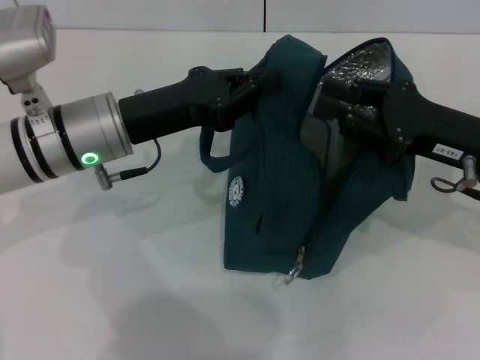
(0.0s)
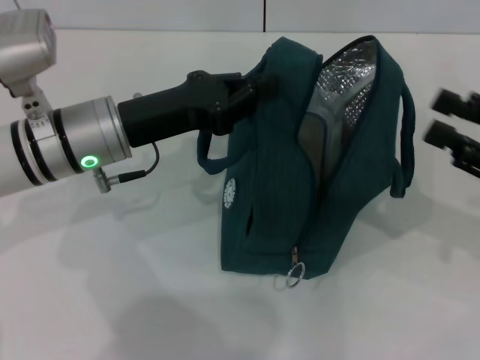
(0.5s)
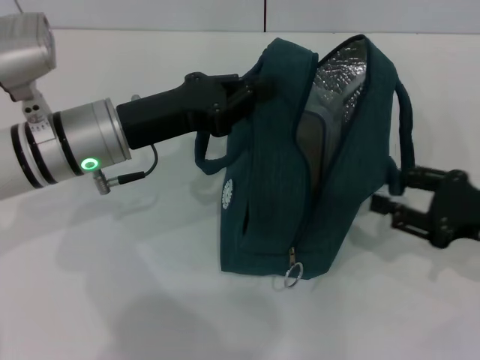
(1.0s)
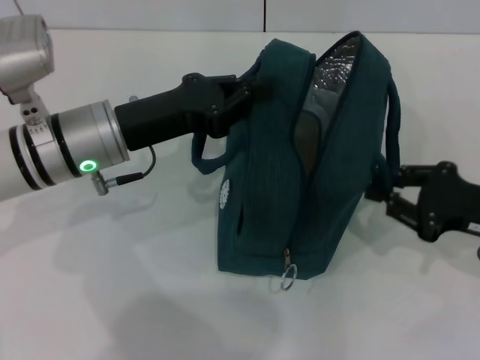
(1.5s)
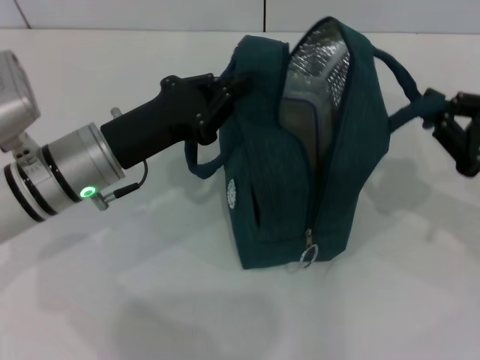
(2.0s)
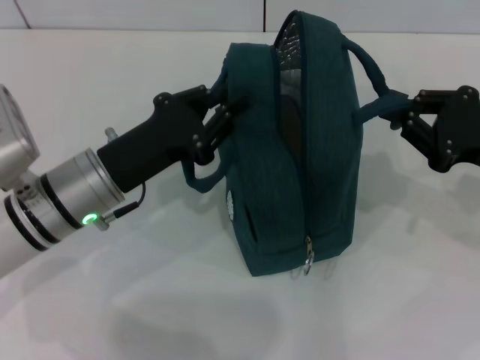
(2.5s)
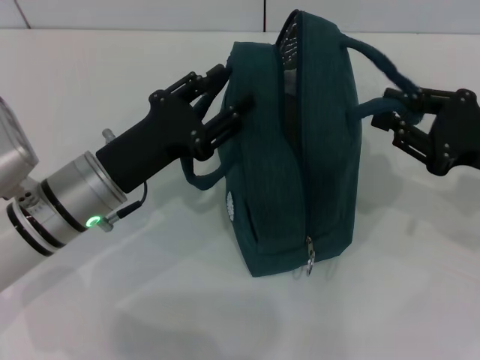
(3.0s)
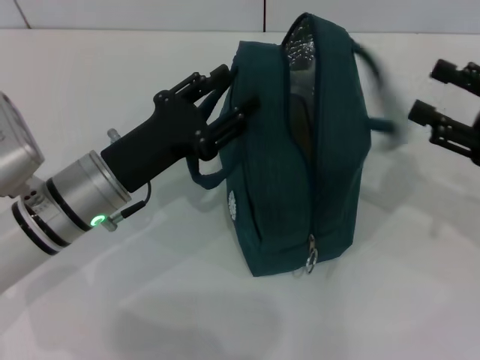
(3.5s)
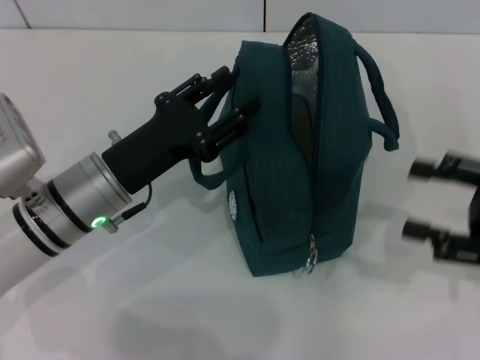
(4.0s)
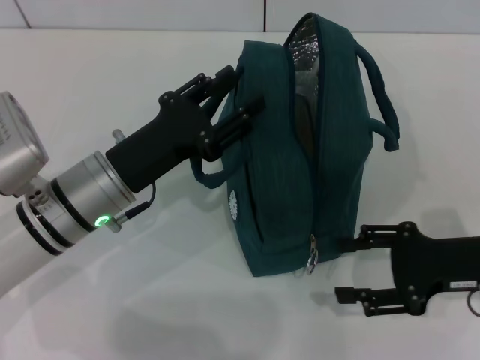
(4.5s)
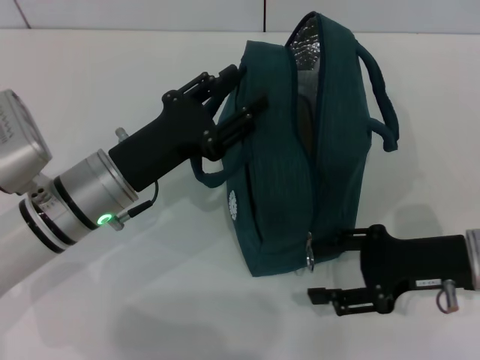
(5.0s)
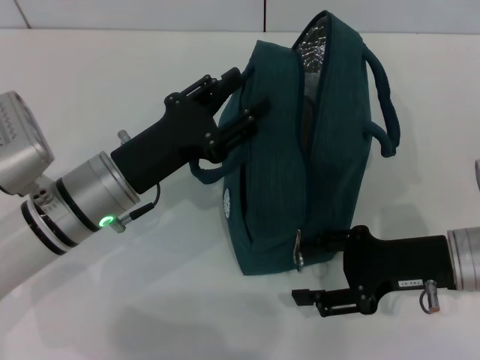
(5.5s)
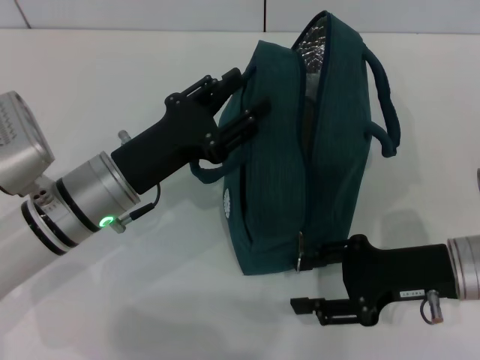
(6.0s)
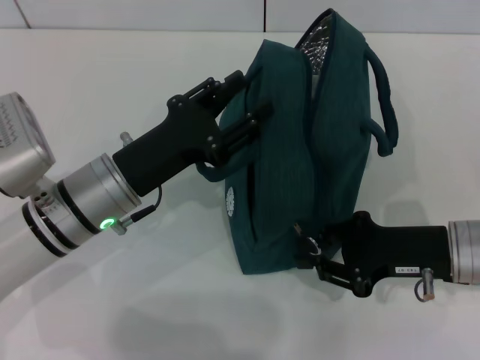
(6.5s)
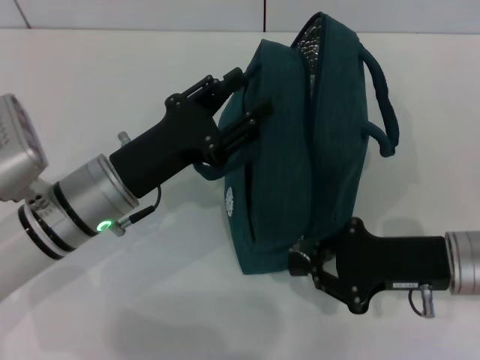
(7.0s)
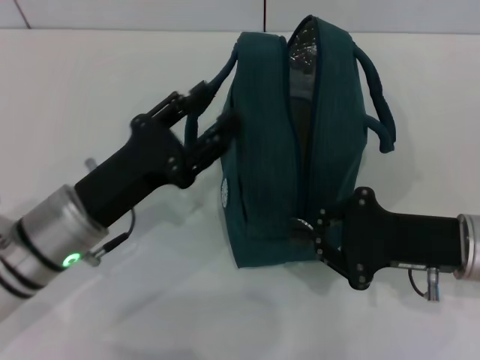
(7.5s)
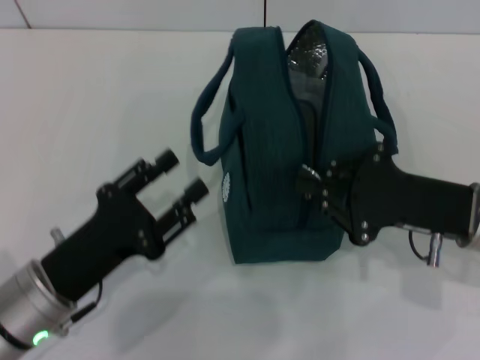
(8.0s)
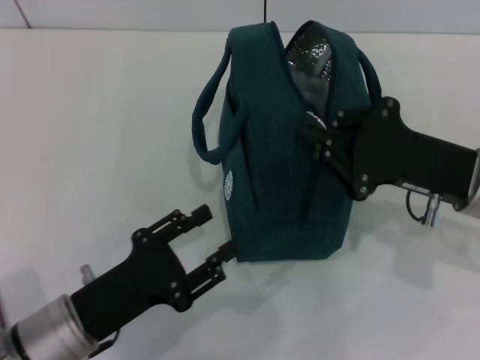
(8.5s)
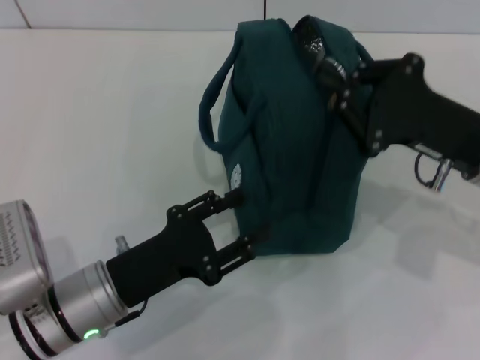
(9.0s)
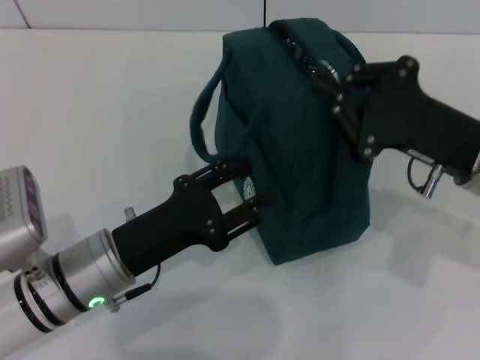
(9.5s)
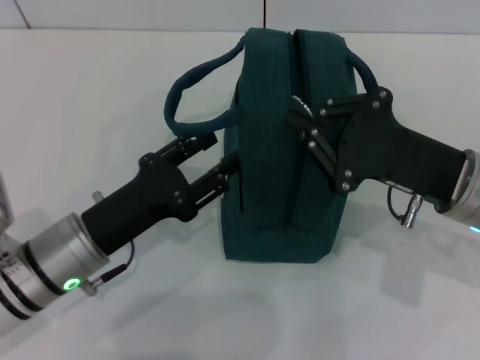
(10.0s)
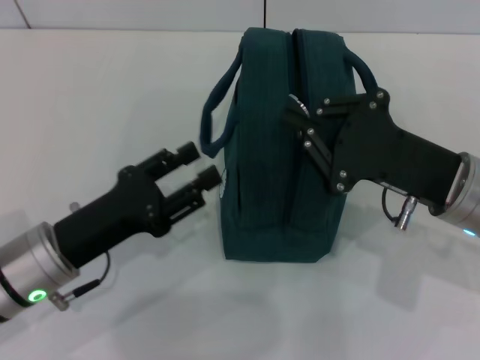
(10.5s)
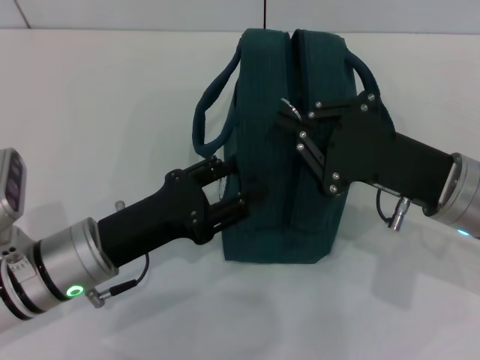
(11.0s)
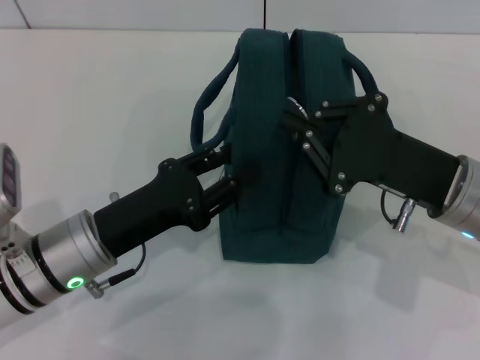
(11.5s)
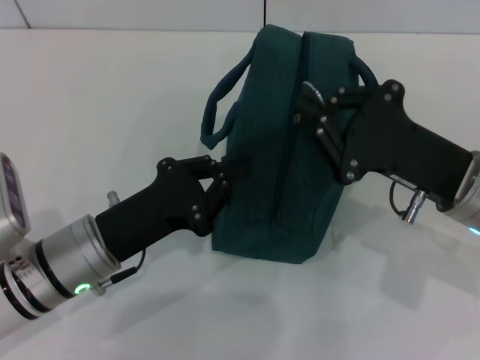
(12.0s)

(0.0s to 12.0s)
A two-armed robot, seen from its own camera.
Step, 0.5s - 3.0s: Hold the lunch bag with your left hand.
0.0s - 2.0s: The right gripper is displaced to the right by some 5 cm.
2.0s - 4.0s: The right gripper opens; the left gripper opens up.
4.0s - 6.0s: The right gripper travels to the left and downward by some 10 cm.
6.0s - 8.0s: The left gripper is displaced backward by roughly 10 cm. The right gripper closes.
10.0s - 12.0s: The left gripper closes its fingers.

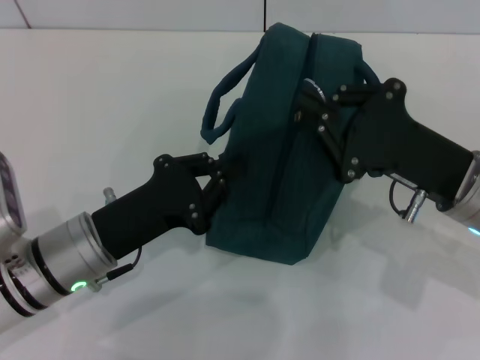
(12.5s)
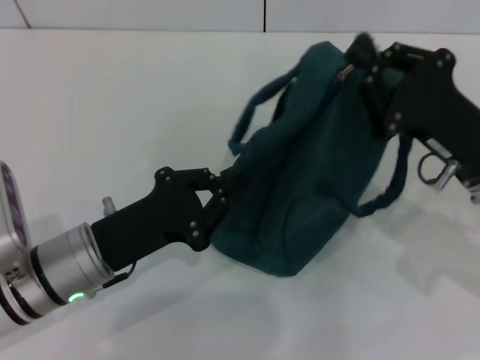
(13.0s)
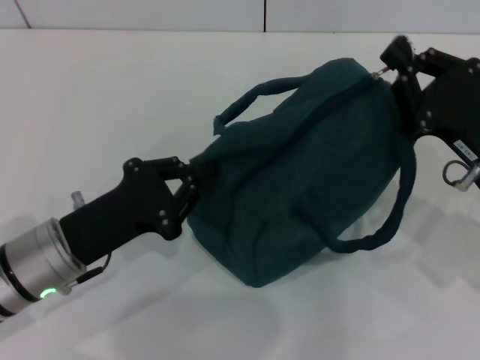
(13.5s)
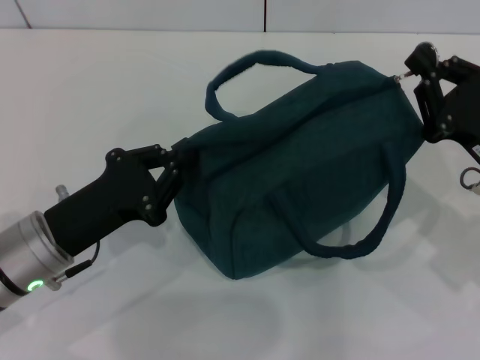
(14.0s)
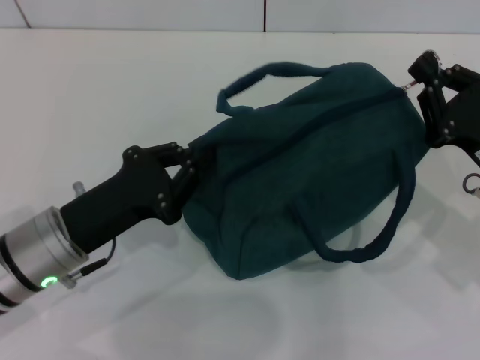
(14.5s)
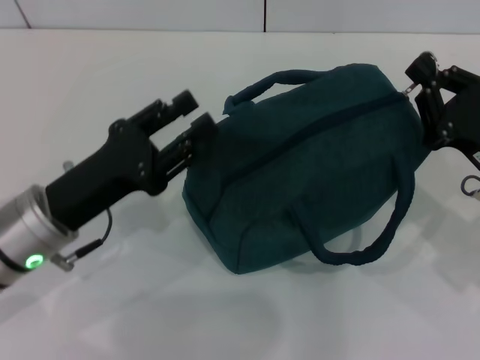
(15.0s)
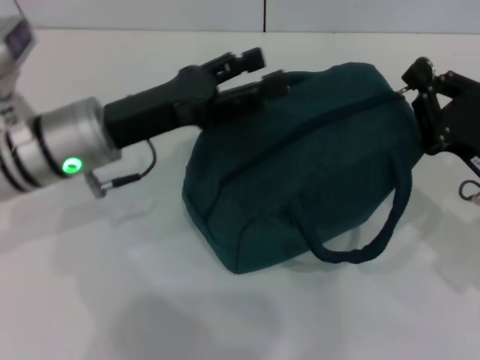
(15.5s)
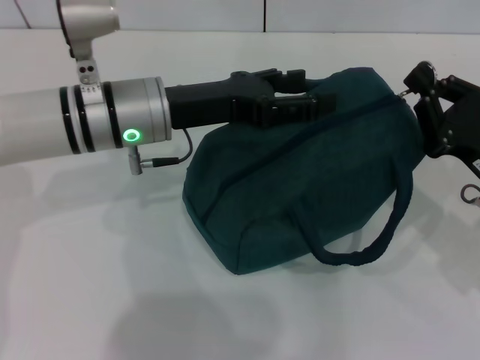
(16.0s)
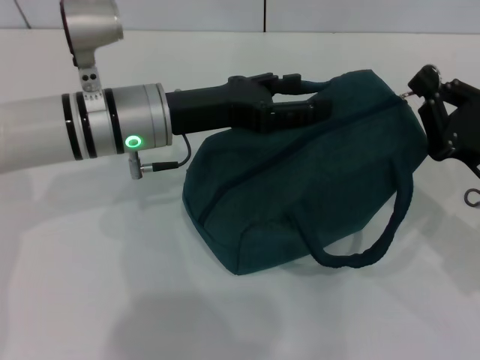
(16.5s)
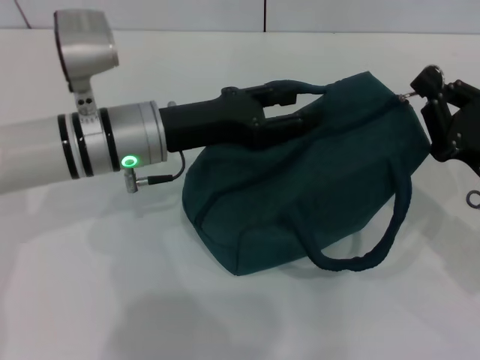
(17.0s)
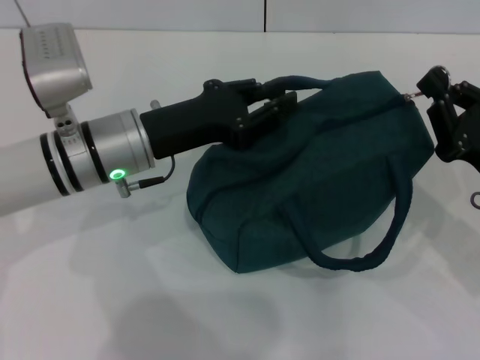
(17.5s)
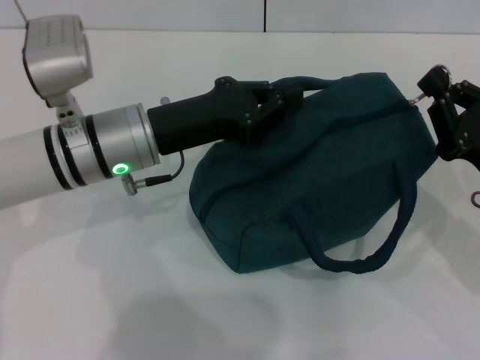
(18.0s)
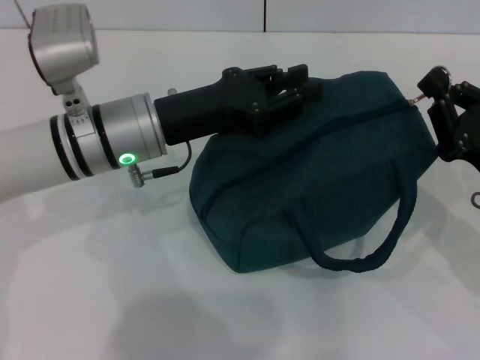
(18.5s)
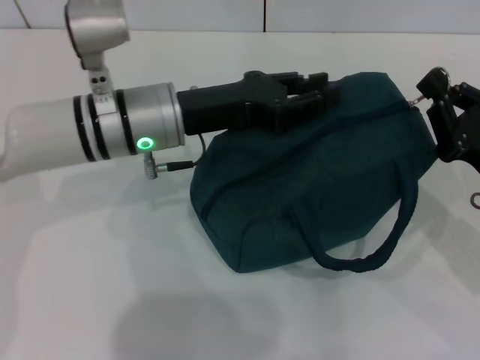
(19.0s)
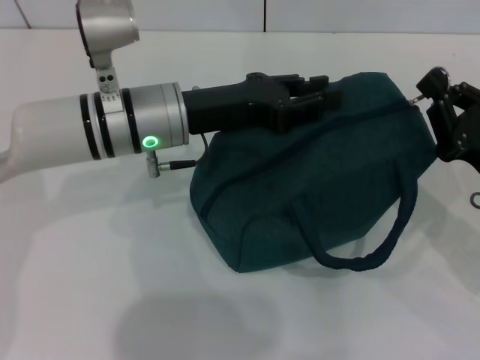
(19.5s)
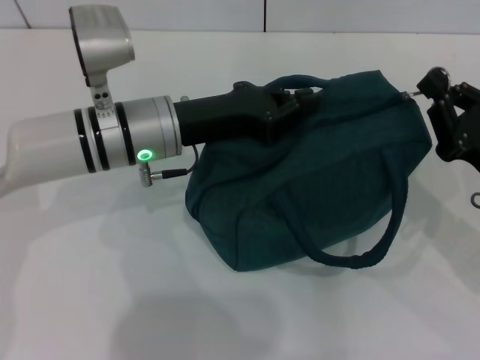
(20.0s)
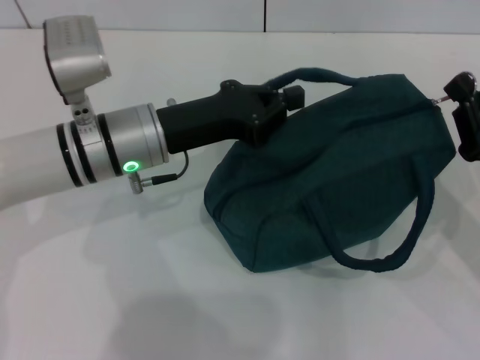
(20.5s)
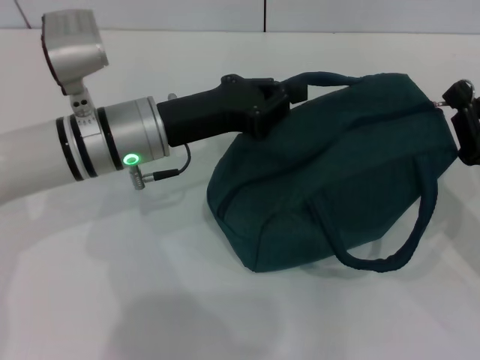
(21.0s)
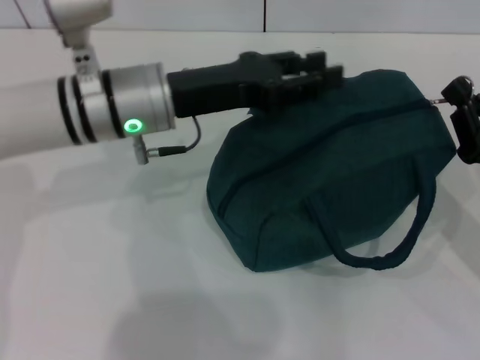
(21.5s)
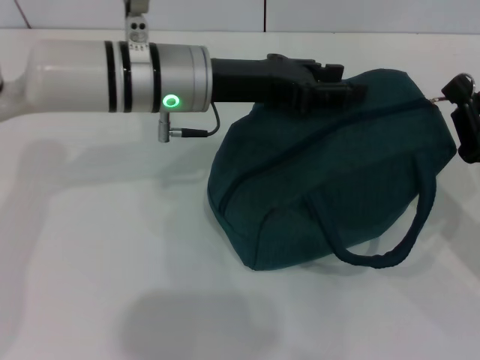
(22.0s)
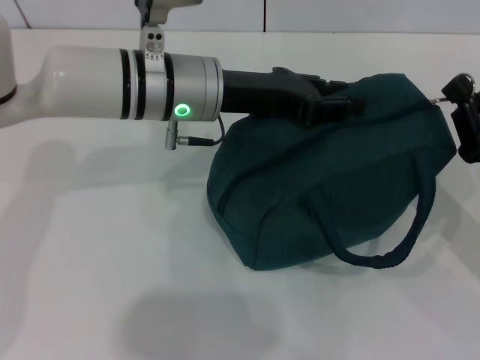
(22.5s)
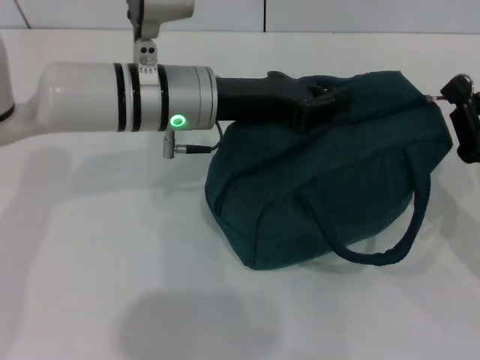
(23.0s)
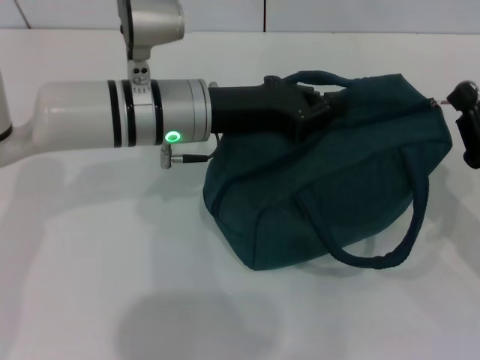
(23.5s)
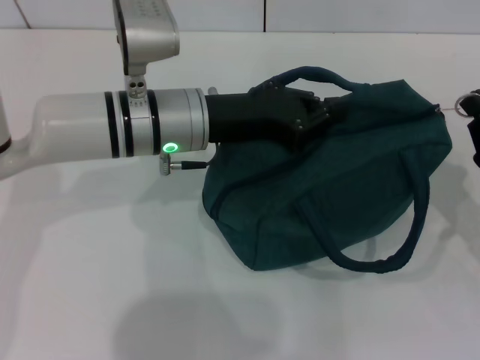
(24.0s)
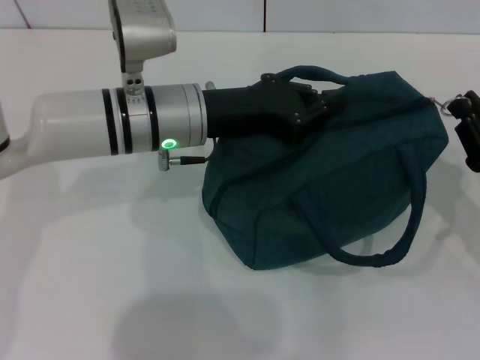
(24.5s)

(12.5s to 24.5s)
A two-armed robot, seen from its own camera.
12.5s - 14.5s: The right gripper is displaced to the right by approximately 5 cm.
14.5s - 16.5s: The left gripper travels forward, to the right and upward by roughly 15 cm, and opens up.
16.5s - 18.5s: The left gripper closes.
18.5s - 20.5s: The grippers make only small movements.
20.5s - 22.5s: The left gripper moves to the right, some 5 cm, and opens its fingers.
22.5s - 24.5s: The left gripper closes its fingers.

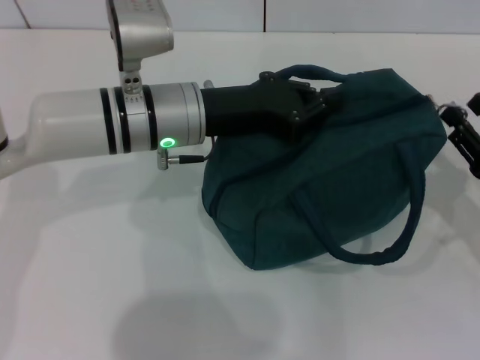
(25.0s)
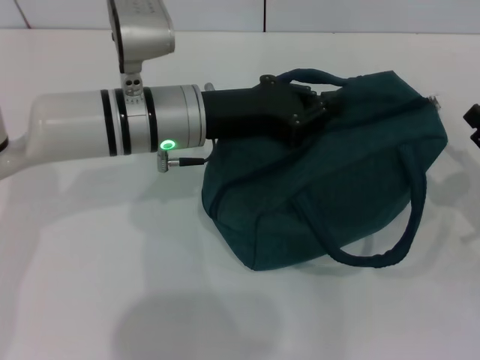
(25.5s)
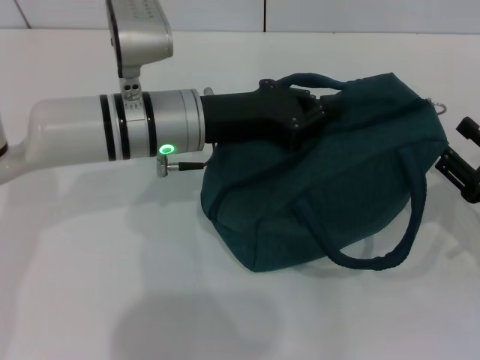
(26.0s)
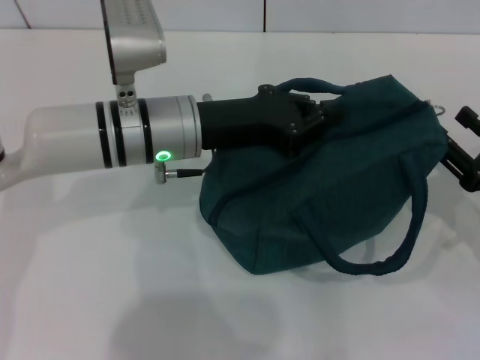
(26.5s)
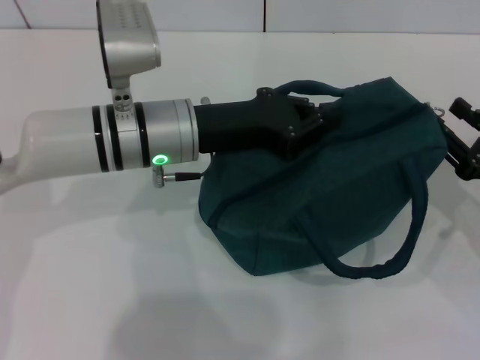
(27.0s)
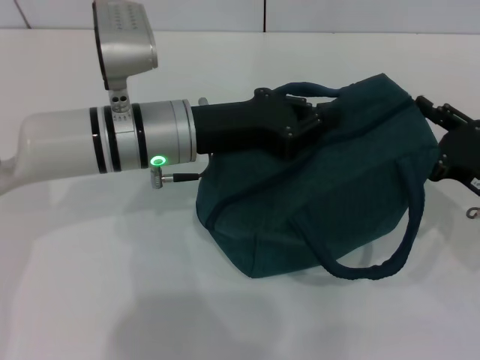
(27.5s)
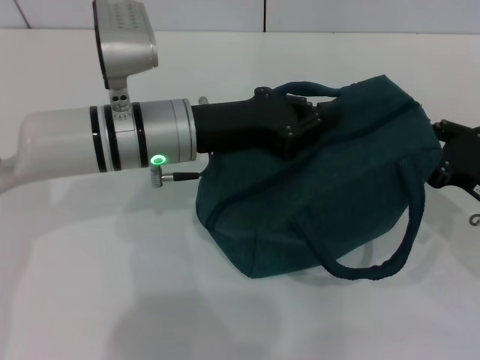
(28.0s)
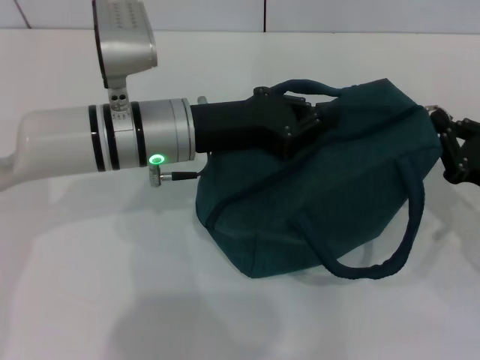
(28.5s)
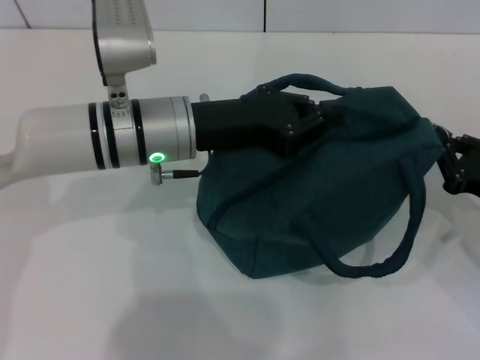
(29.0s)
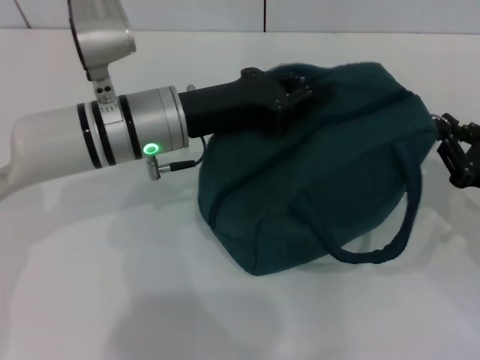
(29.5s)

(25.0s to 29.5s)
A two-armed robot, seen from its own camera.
25.0s - 27.0s: There are only small adjustments of the grippers.
27.0s - 29.5s: The right gripper closes its fingers.
